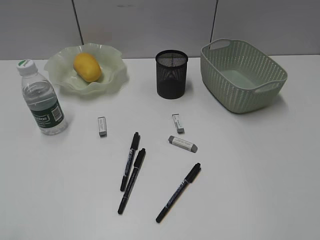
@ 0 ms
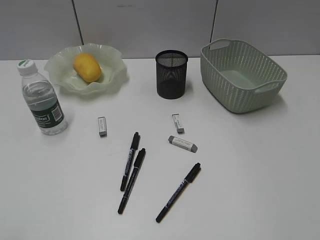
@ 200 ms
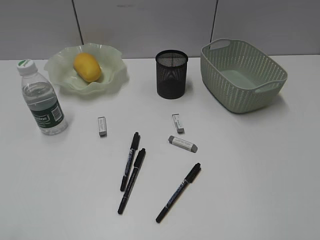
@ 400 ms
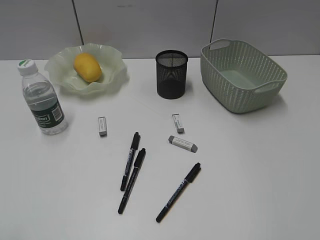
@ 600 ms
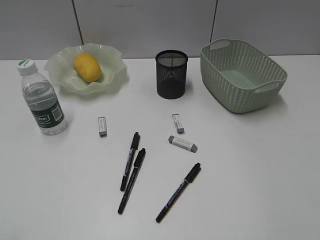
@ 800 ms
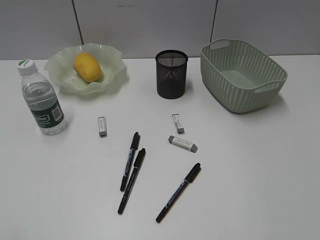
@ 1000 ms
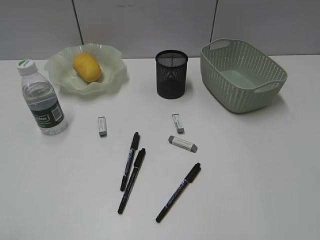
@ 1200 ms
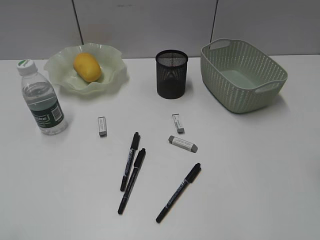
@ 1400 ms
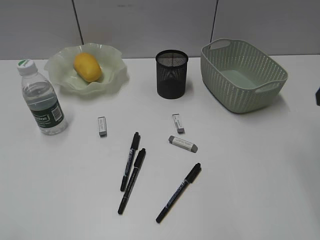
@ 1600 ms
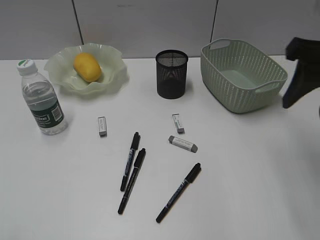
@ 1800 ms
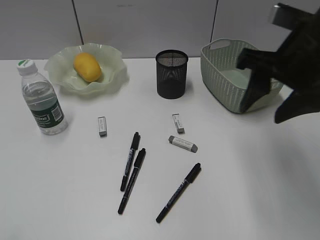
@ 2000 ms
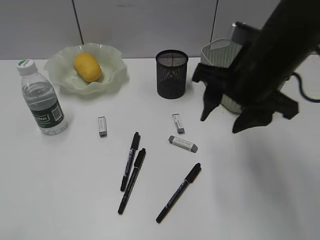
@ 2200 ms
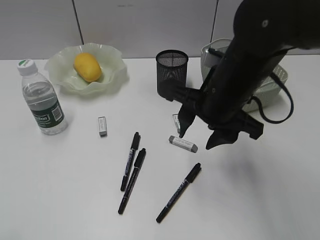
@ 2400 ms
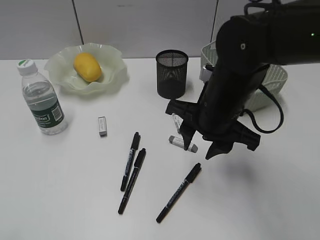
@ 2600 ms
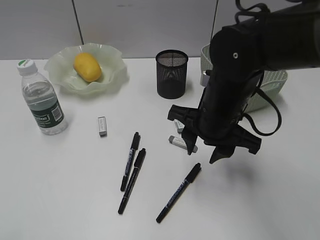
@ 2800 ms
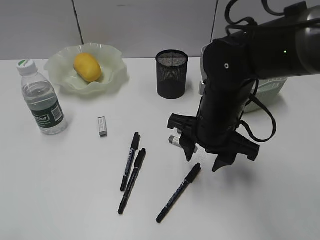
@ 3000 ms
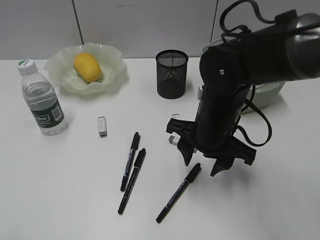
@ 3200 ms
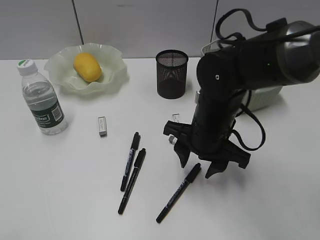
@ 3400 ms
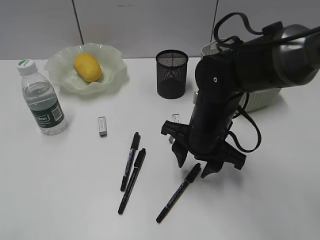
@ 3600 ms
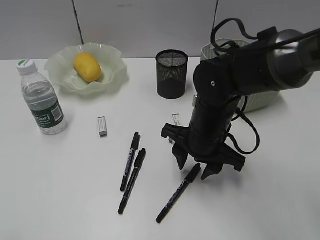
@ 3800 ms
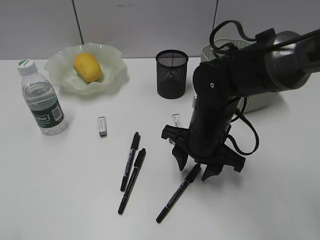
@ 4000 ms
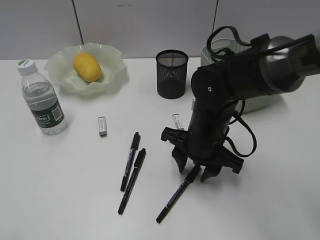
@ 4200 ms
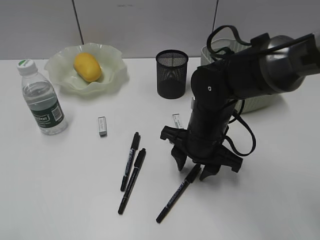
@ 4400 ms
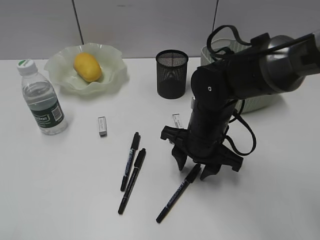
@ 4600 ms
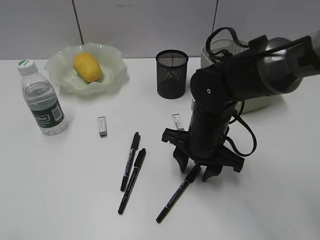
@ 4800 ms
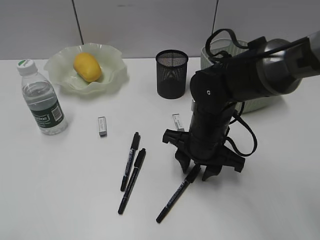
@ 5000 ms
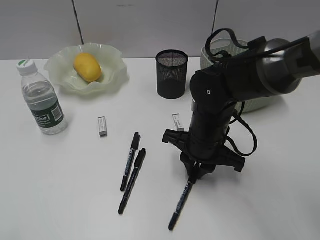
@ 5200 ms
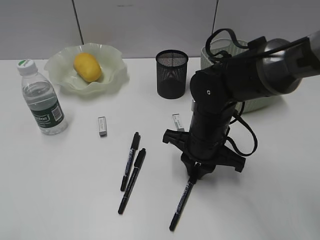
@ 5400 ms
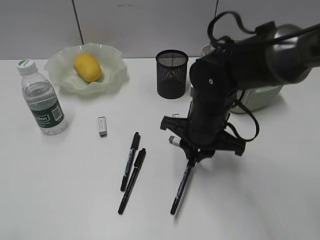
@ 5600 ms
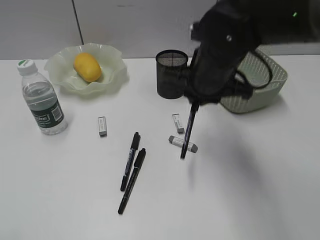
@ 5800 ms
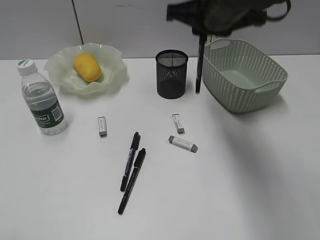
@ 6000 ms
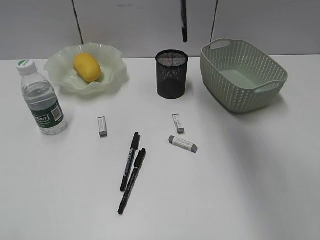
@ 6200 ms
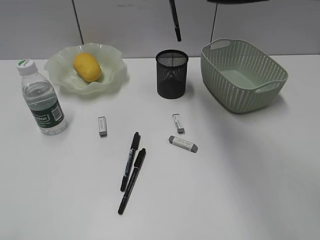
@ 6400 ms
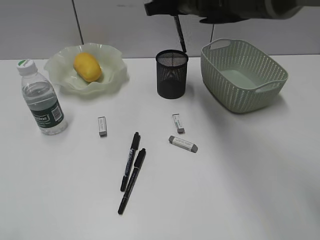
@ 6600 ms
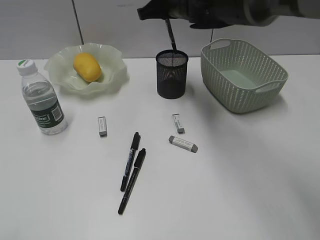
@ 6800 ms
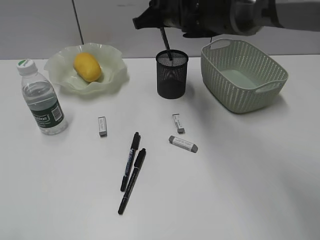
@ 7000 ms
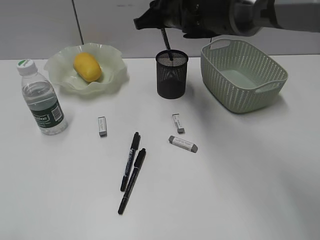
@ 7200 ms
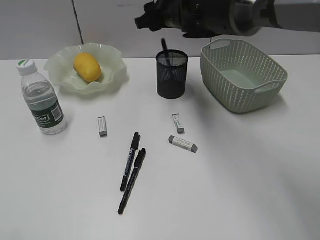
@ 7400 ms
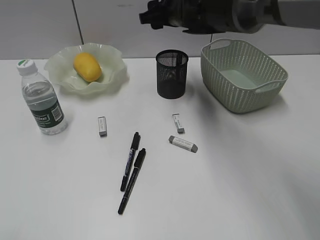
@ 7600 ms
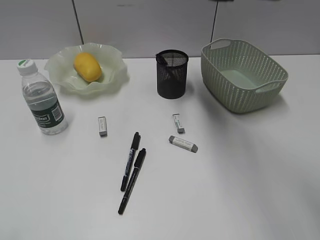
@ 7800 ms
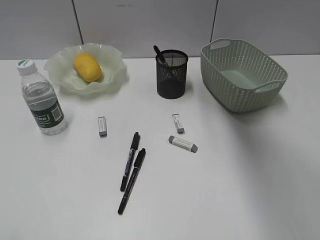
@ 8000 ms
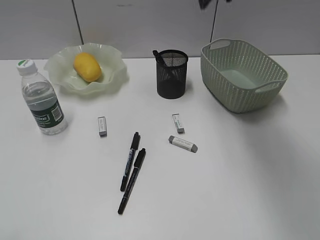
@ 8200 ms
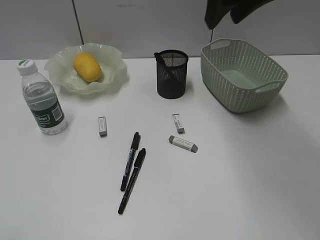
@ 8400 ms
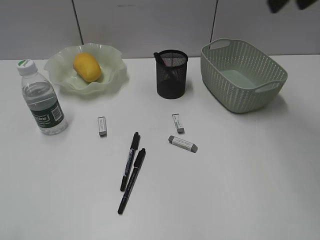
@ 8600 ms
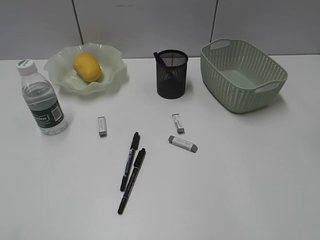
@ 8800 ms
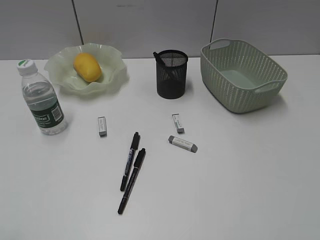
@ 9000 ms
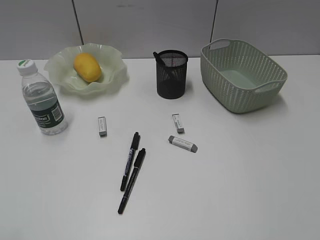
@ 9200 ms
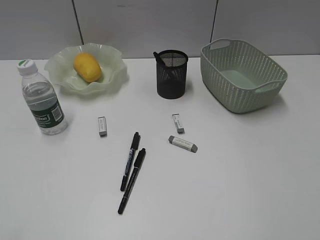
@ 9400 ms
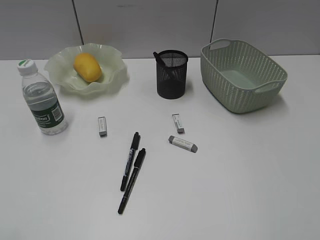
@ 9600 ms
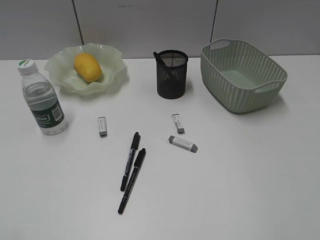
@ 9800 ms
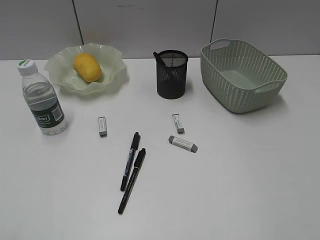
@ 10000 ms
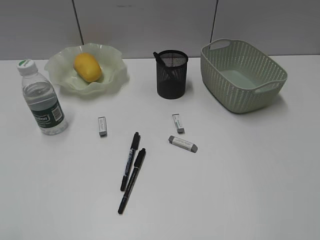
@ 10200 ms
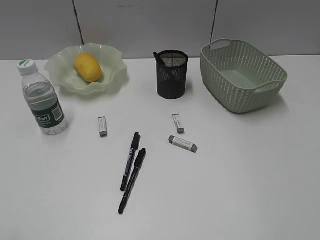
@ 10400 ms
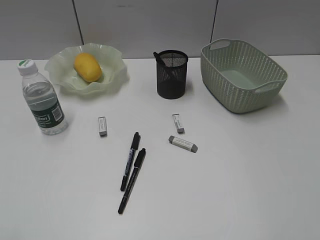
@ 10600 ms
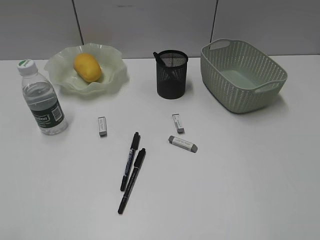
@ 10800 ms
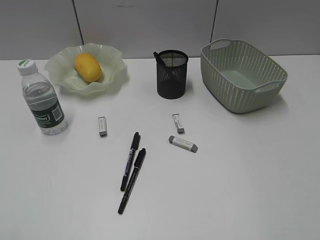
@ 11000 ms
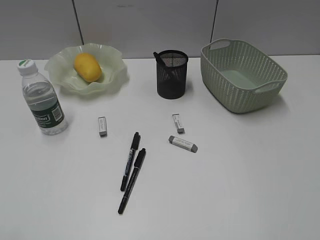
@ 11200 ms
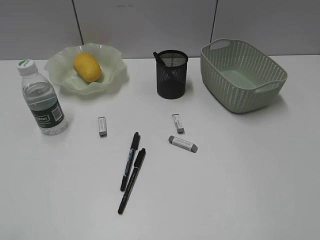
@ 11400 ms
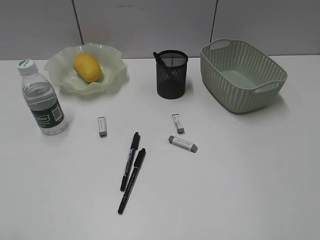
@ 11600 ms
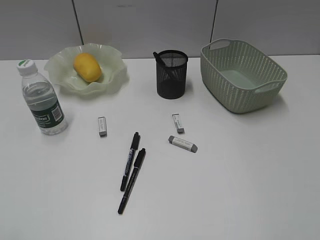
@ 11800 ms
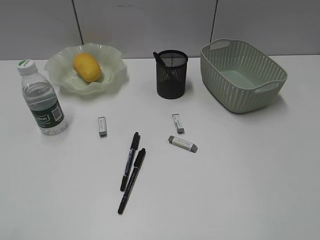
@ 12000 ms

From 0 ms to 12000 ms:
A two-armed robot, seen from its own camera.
Step, from 0 ms to 5400 ms: Grasp the black pen with right gripper.
Step, from 5600 ms to 7600 ms: Place the black pen in pen holder with right gripper.
From 1600 ms to 3000 ms: The right gripper is displaced to the left and downward by some 25 cm.
From 3000 ms to 4400 ms: The grippers make only small movements.
From 4400 ms to 6000 ms: The right gripper moves upward, approximately 15 cm, and closes.
From 6000 ms to 7600 ms: The right gripper goes approximately 15 cm forward and downward, and opens.
From 7600 ms to 9000 ms: The right gripper shifts roughly 40 cm to the right, backward and upward.
From 10400 ms to 12000 ms: Both grippers stay put.

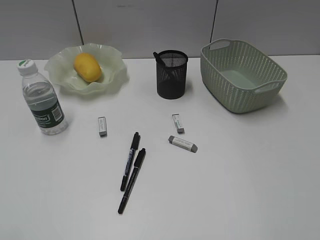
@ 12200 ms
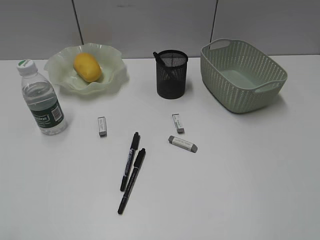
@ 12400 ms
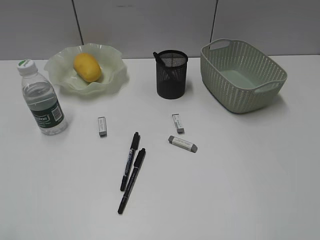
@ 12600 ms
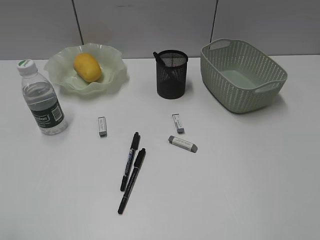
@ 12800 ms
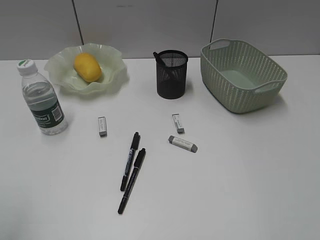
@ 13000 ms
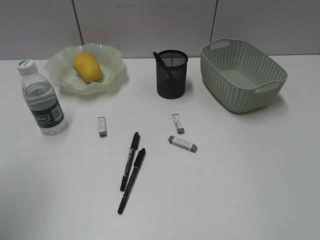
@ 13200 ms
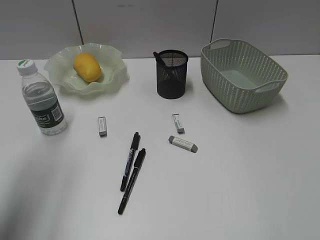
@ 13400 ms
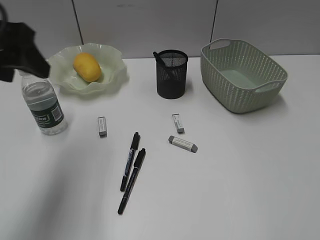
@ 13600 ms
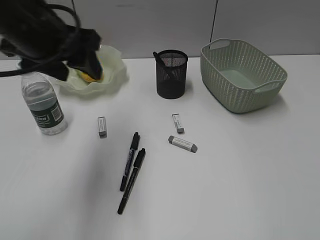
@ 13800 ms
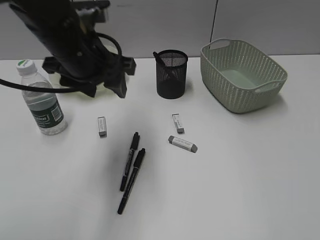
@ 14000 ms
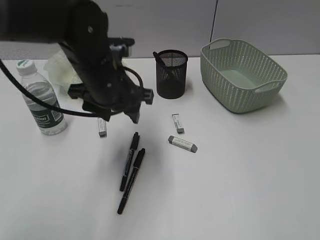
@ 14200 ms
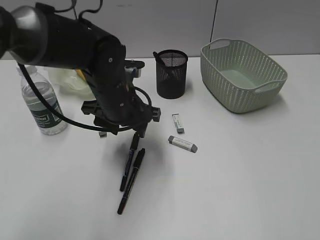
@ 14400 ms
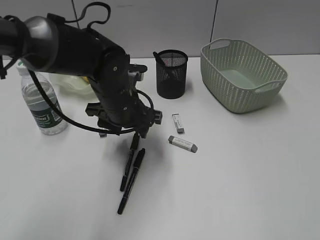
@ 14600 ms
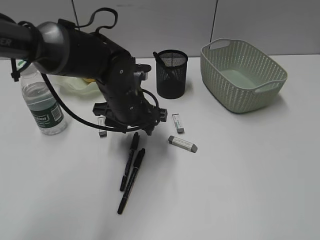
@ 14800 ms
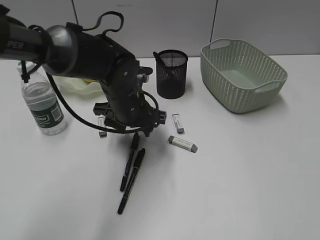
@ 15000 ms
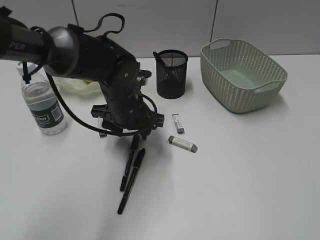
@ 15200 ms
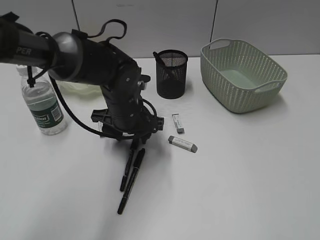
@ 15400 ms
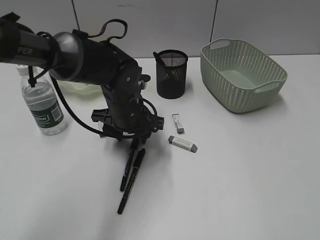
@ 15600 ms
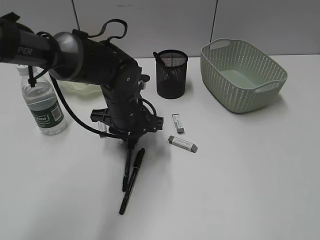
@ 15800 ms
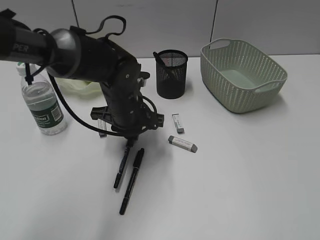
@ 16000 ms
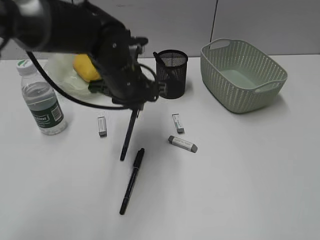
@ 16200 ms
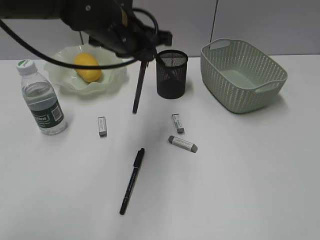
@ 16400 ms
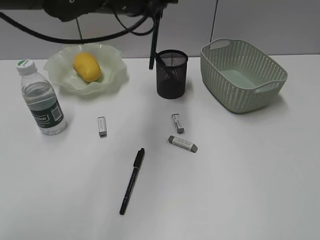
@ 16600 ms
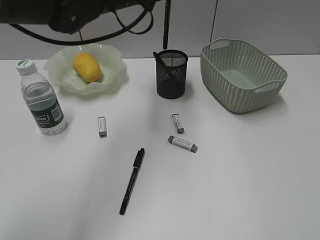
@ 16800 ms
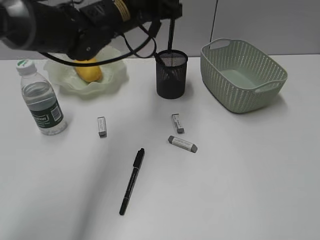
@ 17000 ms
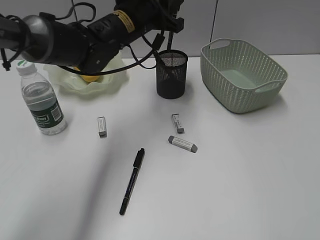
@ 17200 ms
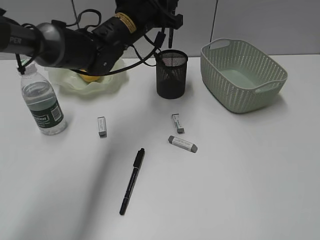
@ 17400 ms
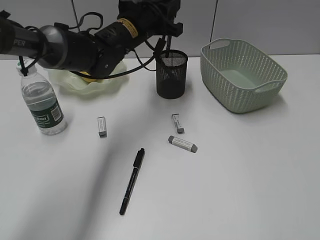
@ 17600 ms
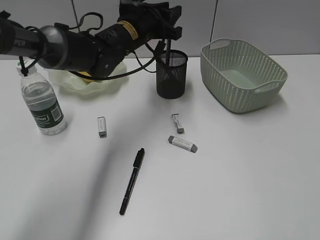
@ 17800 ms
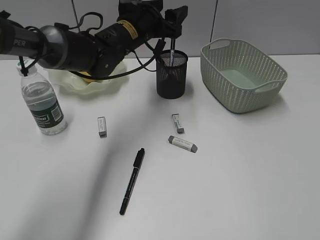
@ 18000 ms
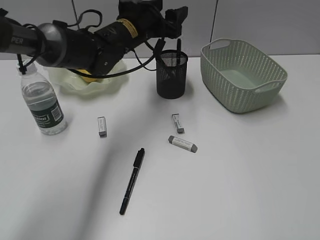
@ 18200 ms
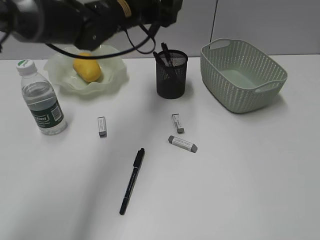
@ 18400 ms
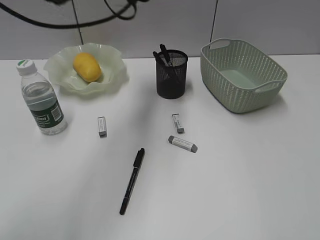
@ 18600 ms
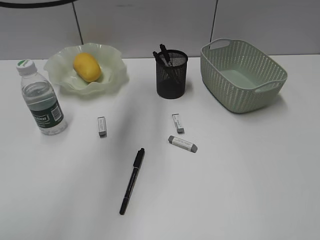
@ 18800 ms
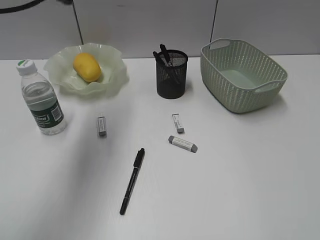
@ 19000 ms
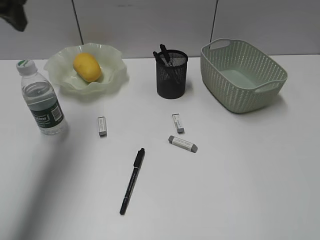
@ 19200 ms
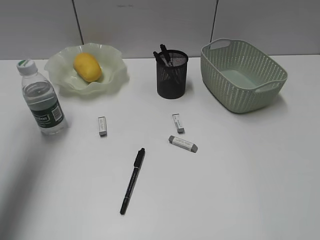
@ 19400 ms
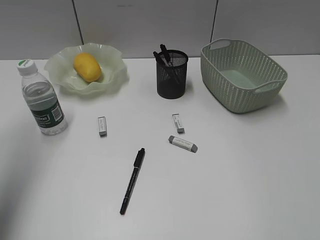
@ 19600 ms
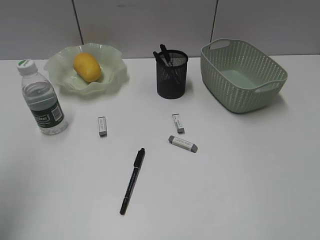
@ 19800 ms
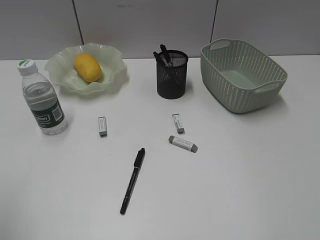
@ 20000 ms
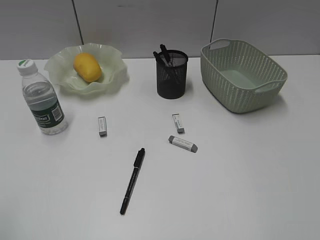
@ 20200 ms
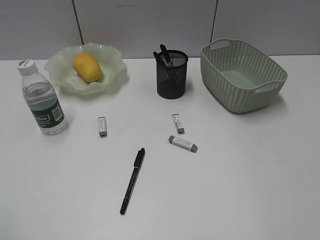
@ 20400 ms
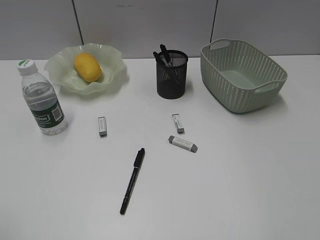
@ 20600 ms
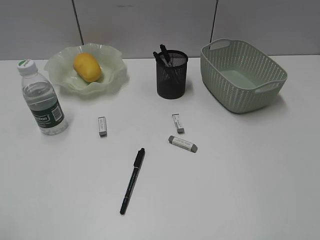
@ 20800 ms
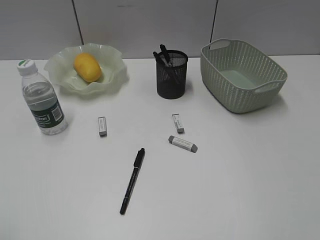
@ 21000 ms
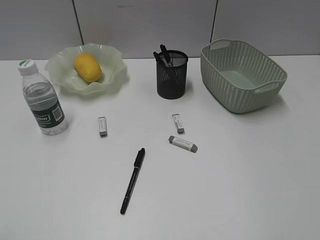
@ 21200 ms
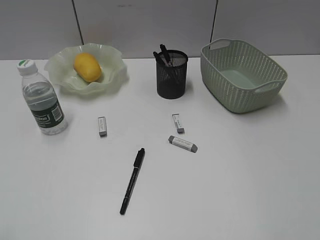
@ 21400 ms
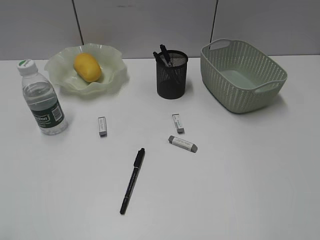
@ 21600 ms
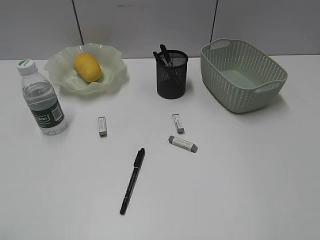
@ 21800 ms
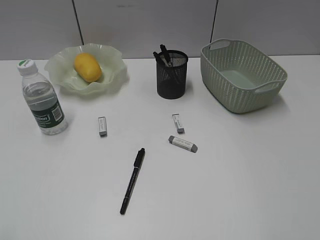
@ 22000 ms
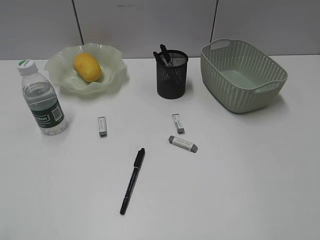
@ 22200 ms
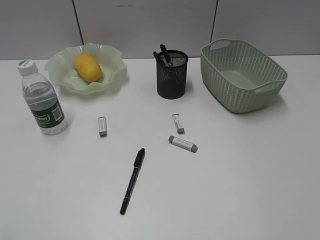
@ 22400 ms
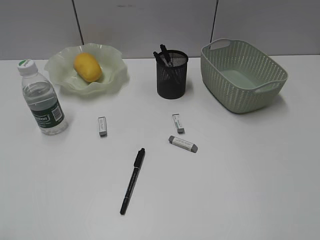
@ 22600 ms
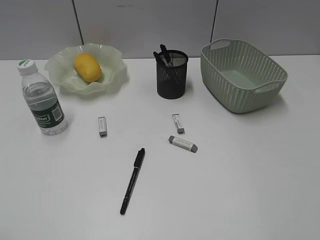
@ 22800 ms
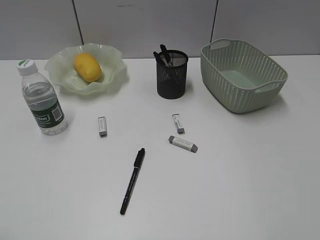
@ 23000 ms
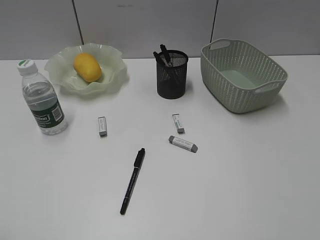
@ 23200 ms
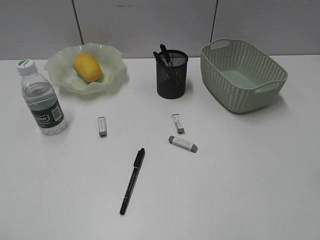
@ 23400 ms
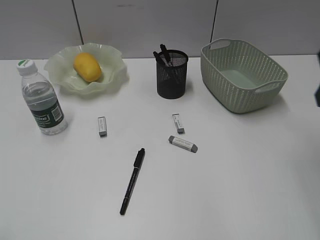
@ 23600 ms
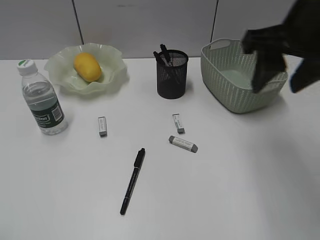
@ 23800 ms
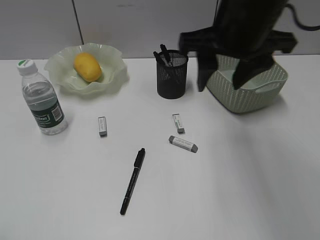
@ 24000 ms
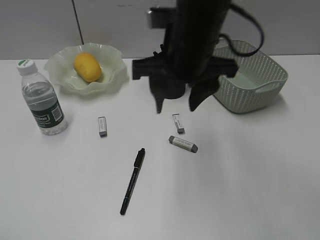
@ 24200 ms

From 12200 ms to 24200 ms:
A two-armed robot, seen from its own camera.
Step, from 12200 ms to 15800 ms: Grasp the black pen with left gripper.
Step, from 16000 ms to 18200 ms: Place the black pen in pen holder with left gripper.
From 12200 ms to 13800 ms: The left gripper moves forward and to the right, approximately 35 cm.
From 13800 ms to 15200 ms: The left gripper heads downward and to the right, covering approximately 20 cm.
From 15200 ms to 16600 ms: The left gripper travels upward by approximately 15 cm, and closes up.
From 16600 ms to 18200 ms: The left gripper travels downward and forward by some 10 cm, and opens.
From 18200 ms to 19800 ms: The left gripper travels to the left, backward and upward by about 40 cm.
From 19800 ms to 21200 ms: The left gripper moves backward, roughly 20 cm.
From 21200 ms to 22600 ms: Neither gripper changes place.
From 22600 ms to 24200 ms: The right gripper shifts some 40 cm forward and to the left.
